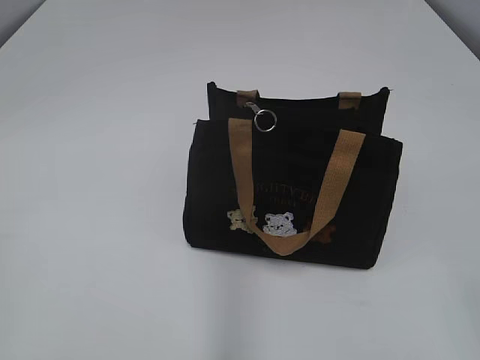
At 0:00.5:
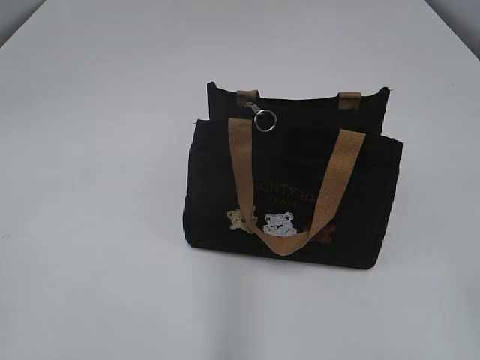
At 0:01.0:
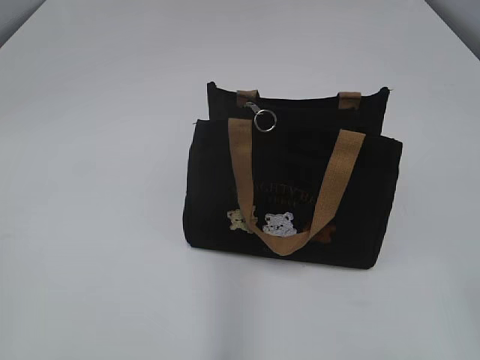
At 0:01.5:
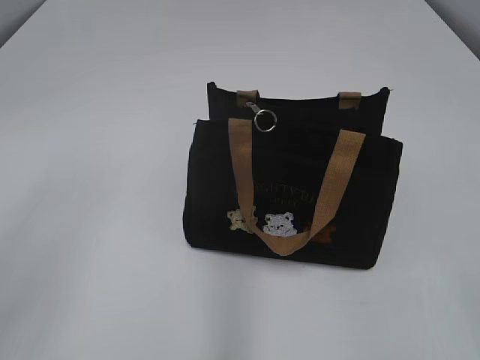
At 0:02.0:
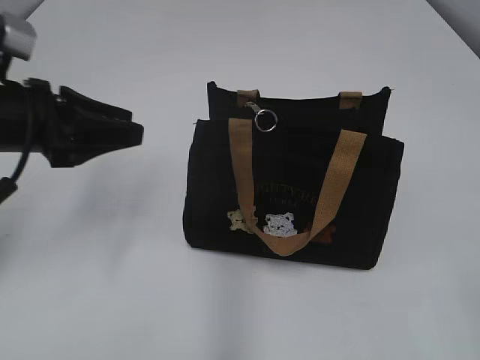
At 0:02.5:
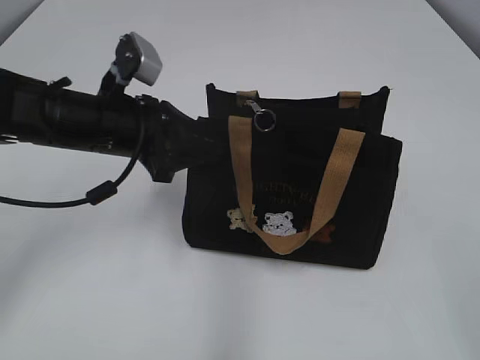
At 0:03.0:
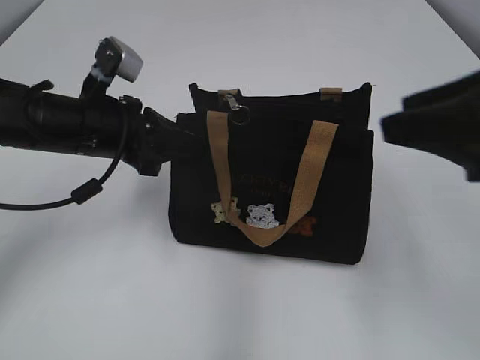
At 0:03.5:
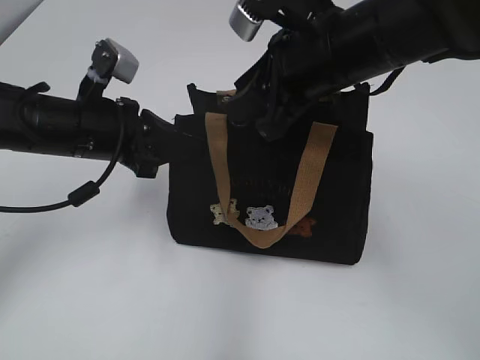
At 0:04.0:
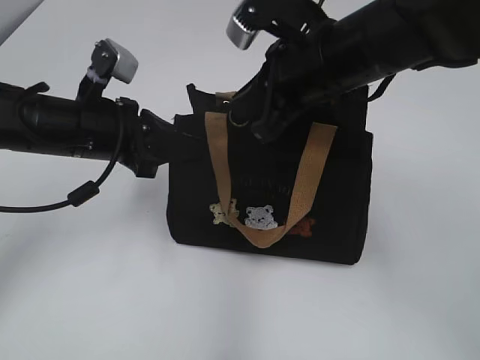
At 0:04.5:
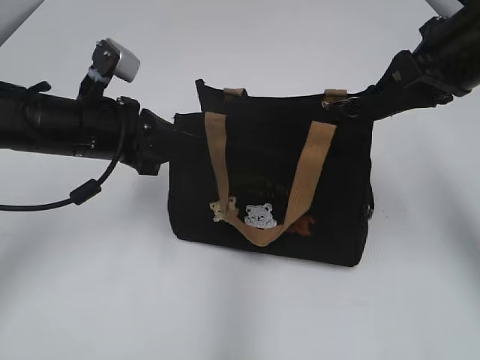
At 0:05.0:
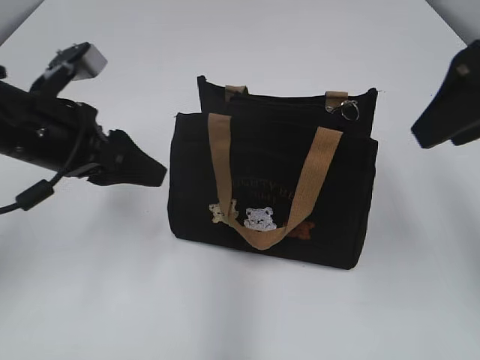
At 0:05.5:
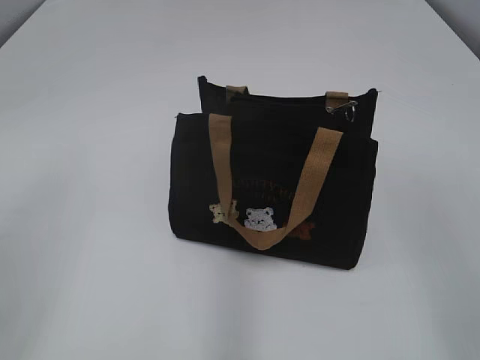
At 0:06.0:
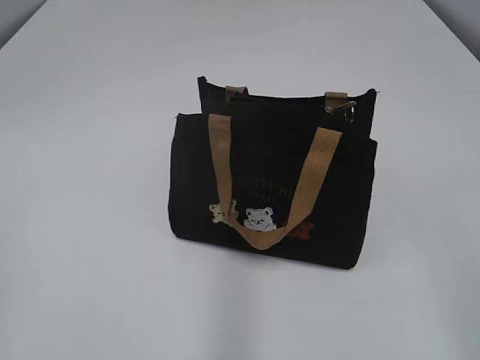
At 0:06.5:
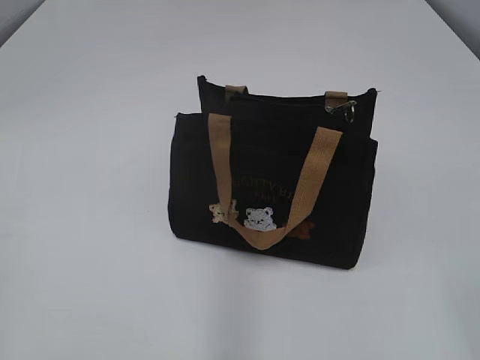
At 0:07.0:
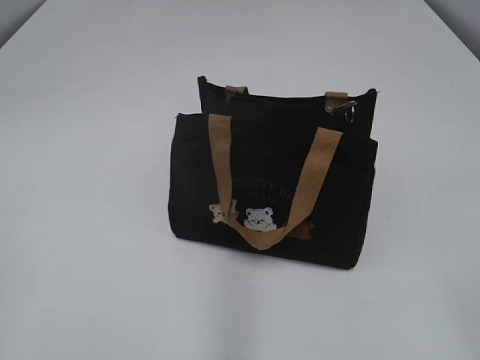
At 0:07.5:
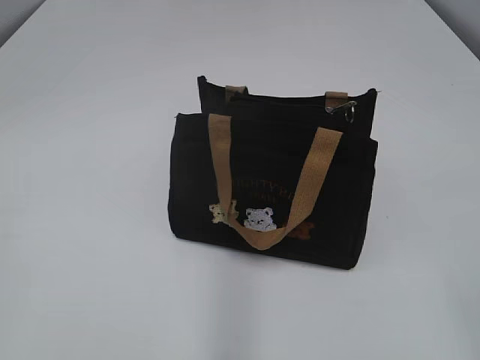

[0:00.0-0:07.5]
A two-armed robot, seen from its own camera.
Step, 0:00.0 to 0:04.5: Pull open the zipper with your right hand.
0:02.0 to 0:04.0: The left gripper is displaced to the right by roughly 5 cm, and closes. Meanwhile the right gripper shifts roughly 40 cm forward and to the left, and closes its fingers.
0:04.0 to 0:05.5: The right gripper travels backward, to the right and upward by approximately 30 cm, and opens; the left gripper heads backward, upward and to the left, covering approximately 25 cm, and opens.

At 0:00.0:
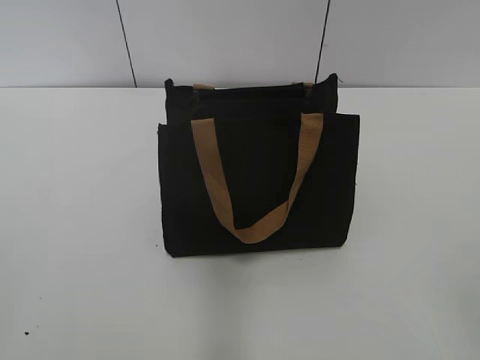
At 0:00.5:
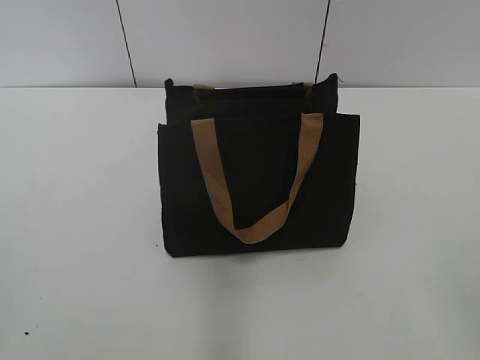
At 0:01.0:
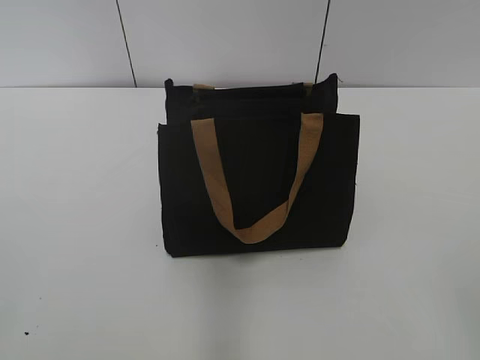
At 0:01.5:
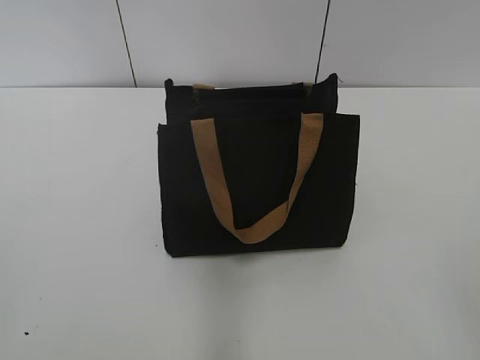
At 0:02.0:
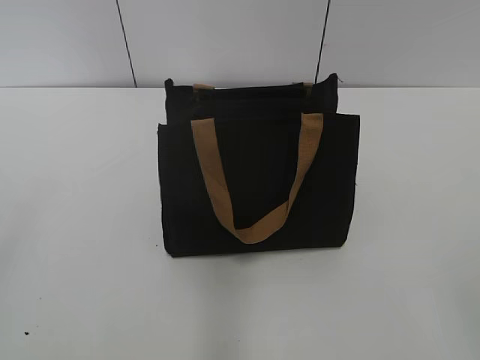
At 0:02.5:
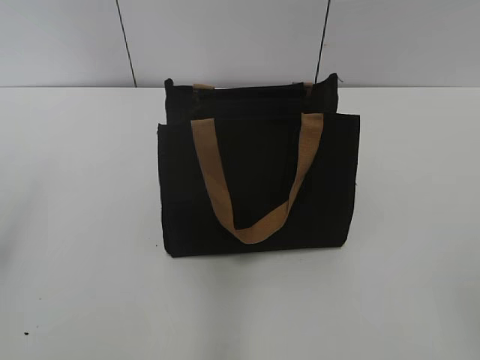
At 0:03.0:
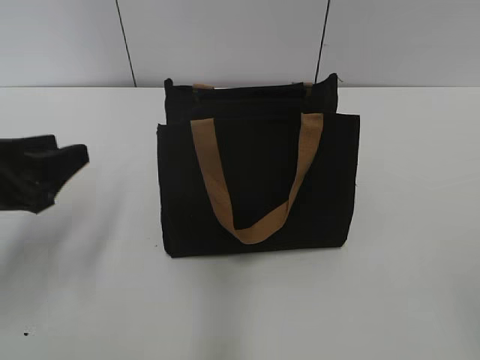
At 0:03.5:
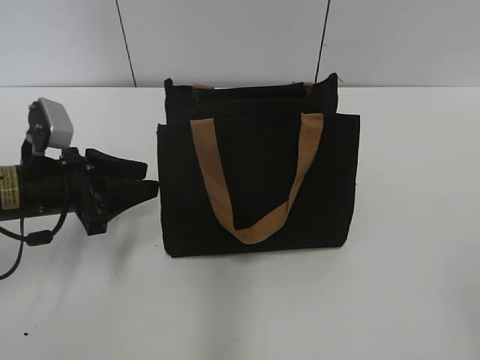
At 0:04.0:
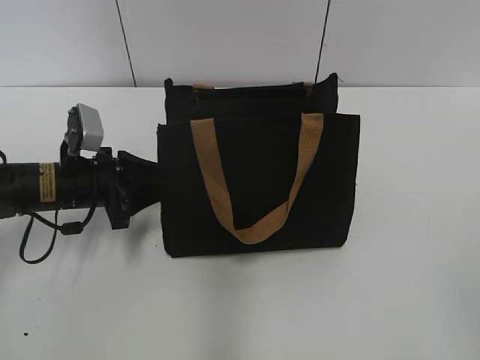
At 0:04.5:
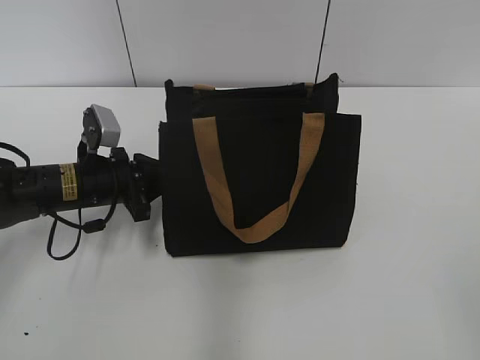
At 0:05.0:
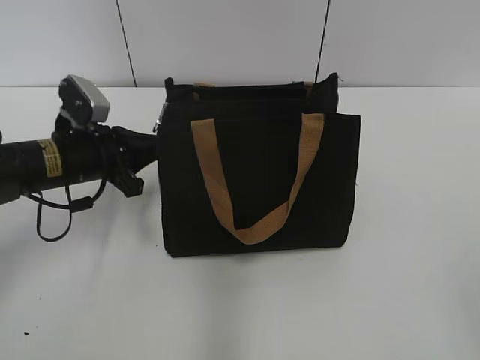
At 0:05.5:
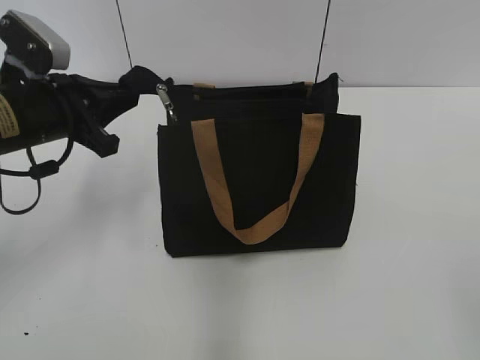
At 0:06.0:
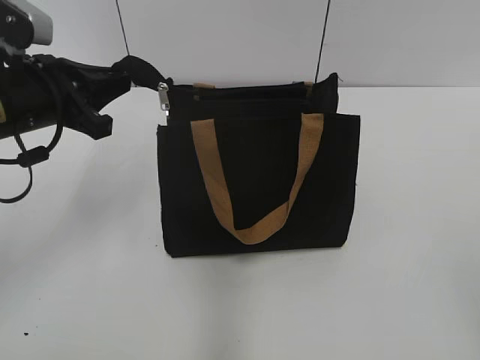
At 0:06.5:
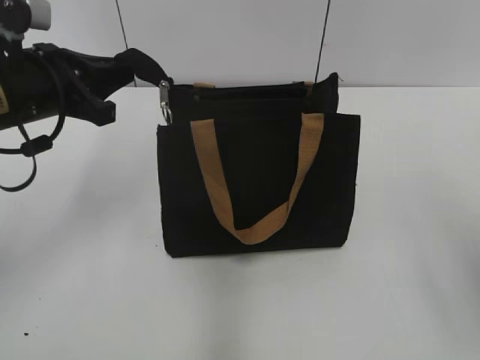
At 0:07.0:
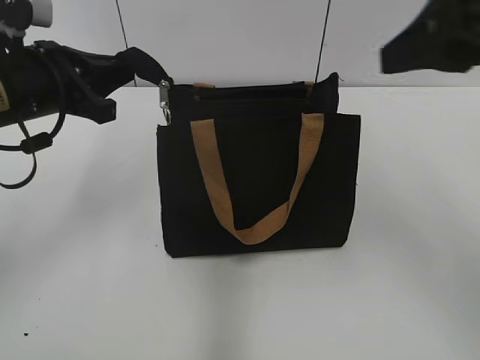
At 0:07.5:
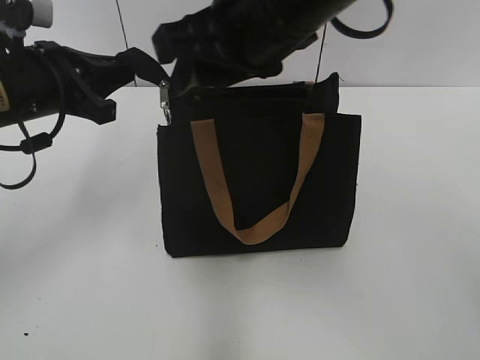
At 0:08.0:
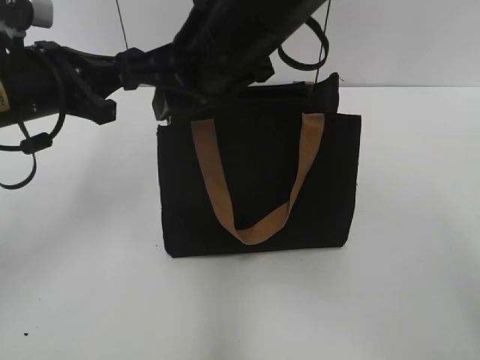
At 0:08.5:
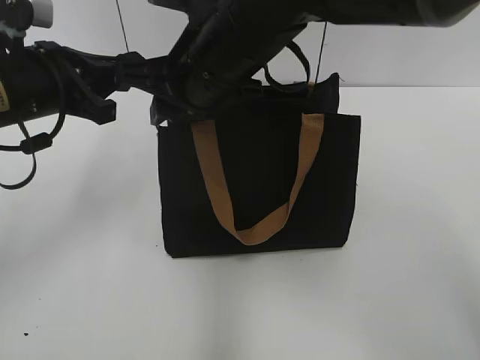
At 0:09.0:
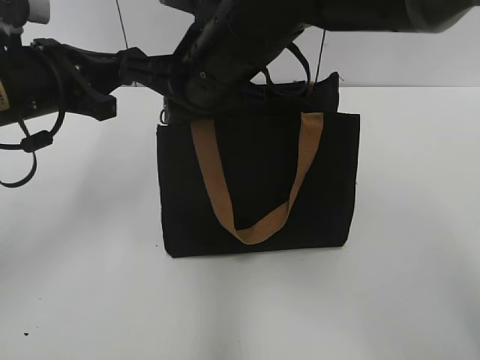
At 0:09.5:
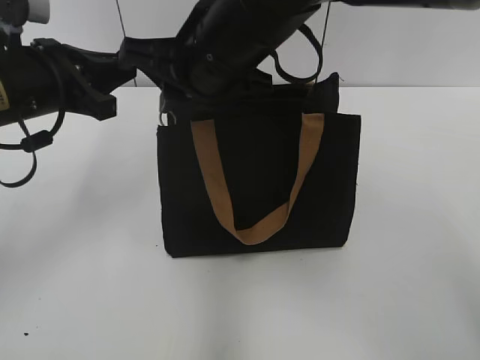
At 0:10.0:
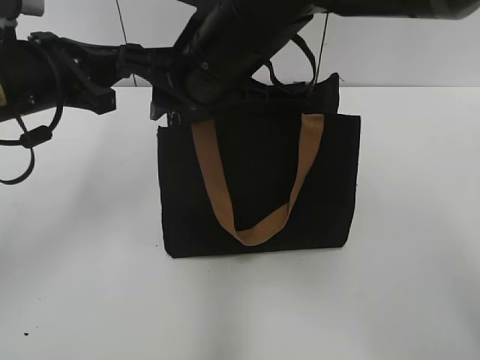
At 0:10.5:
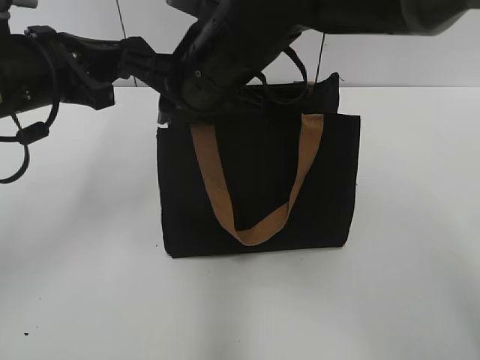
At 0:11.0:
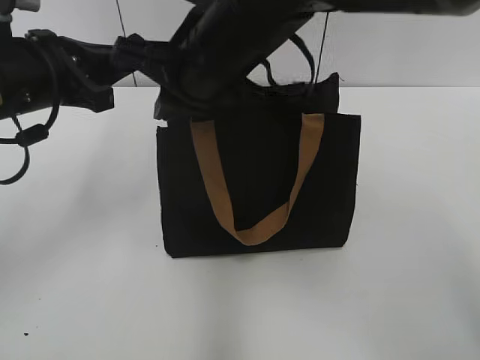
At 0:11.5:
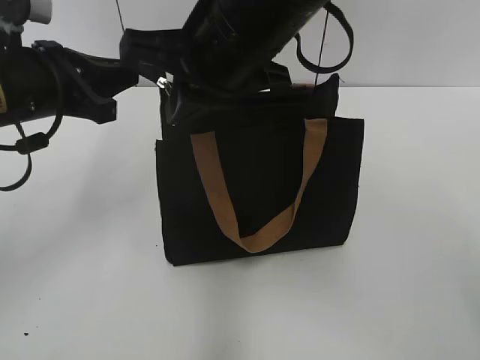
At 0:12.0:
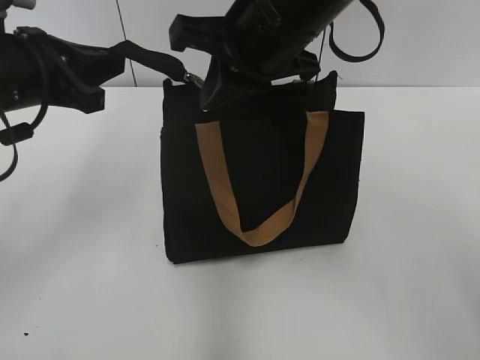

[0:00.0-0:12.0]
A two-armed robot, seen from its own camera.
0:02.0 to 0:04.0: The left gripper heads forward and downward, covering roughly 40 cm, and closes.
0:04.0 to 0:06.0: The left gripper heads upward, covering approximately 15 cm, and closes up.
0:06.0 to 0:08.0: The right gripper is displaced forward and to the left by approximately 40 cm, and closes its fingers.
0:08.0 to 0:10.0: The right gripper closes and opens again.
0:10.0 to 0:12.0: The right gripper shifts by approximately 5 cm, and closes up.

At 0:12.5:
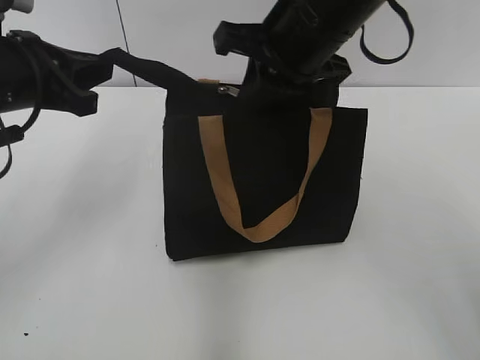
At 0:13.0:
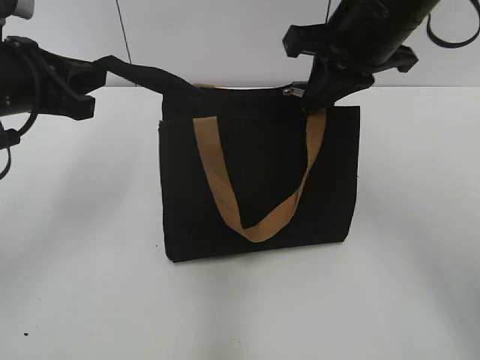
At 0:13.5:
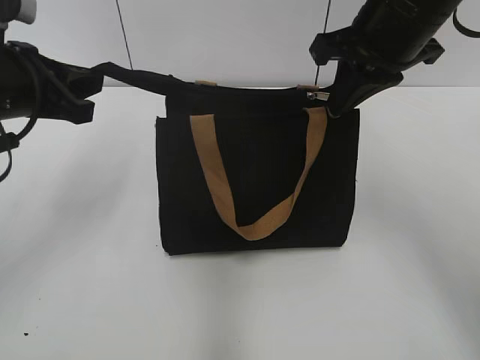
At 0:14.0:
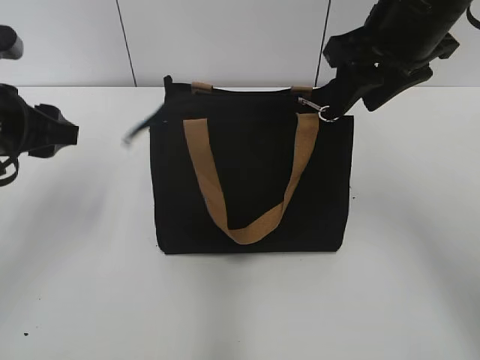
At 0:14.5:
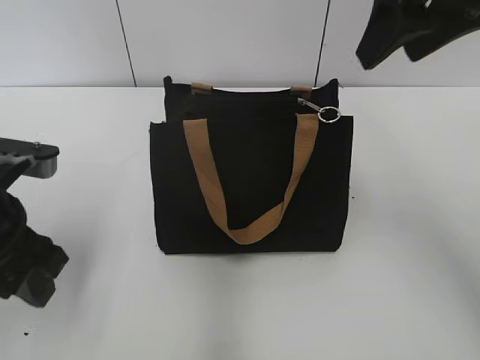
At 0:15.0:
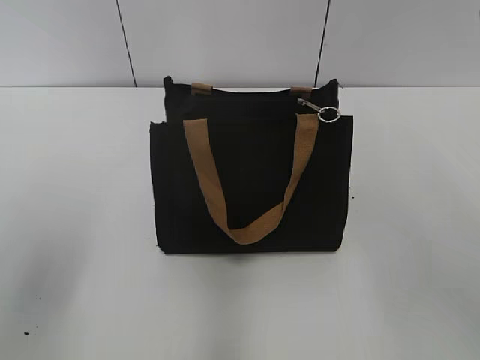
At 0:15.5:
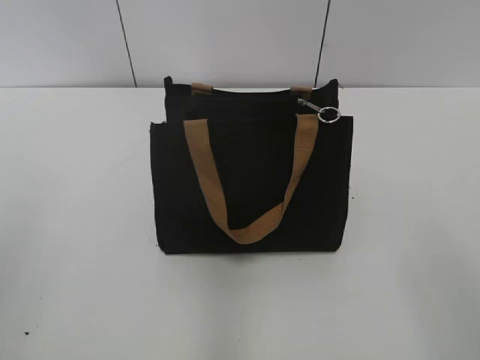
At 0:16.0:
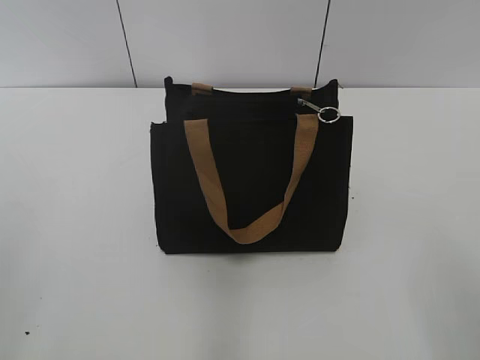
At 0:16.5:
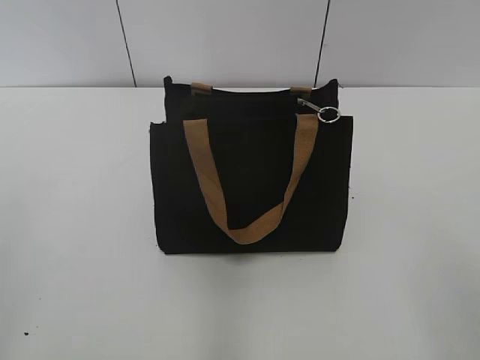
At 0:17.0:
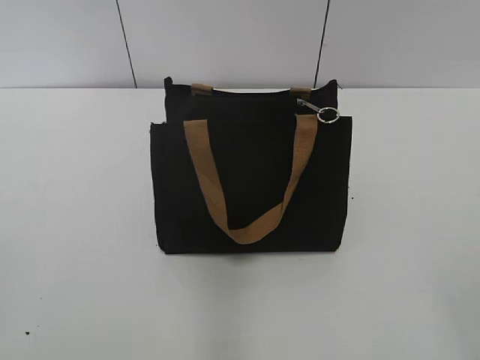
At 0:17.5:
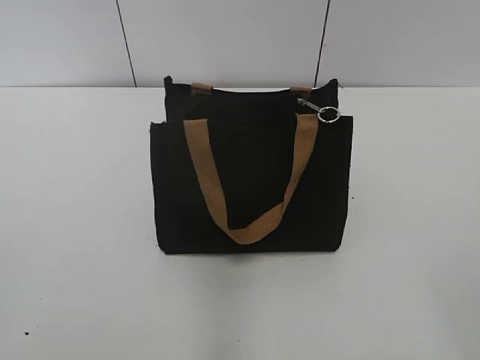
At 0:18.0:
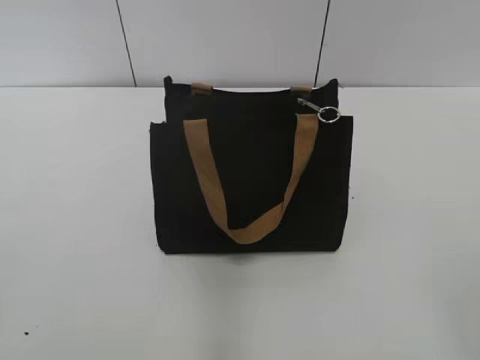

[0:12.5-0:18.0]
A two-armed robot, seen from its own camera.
0:12.5 to 0:14.5: The left gripper goes about 10 cm backward and downward, and opens up. Meanwhile the right gripper shifts about 10 cm to the right and upward, and opens up.
0:14.5 to 0:16.0: The left gripper shifts some 20 cm backward, to the left and upward, and opens. Meanwhile the right gripper heads backward, covering approximately 25 cm.
